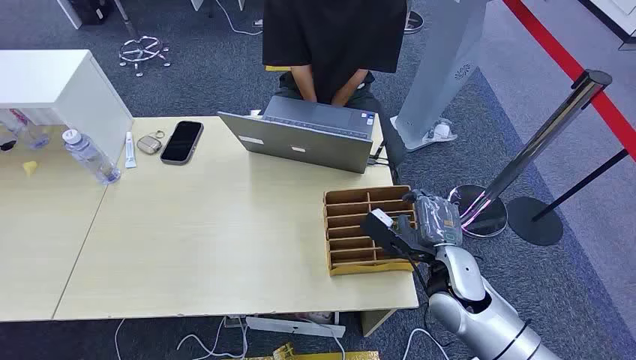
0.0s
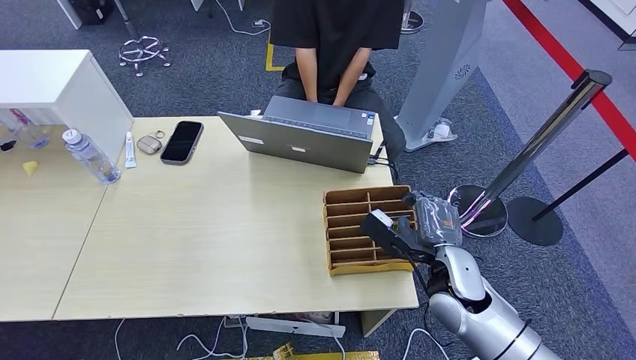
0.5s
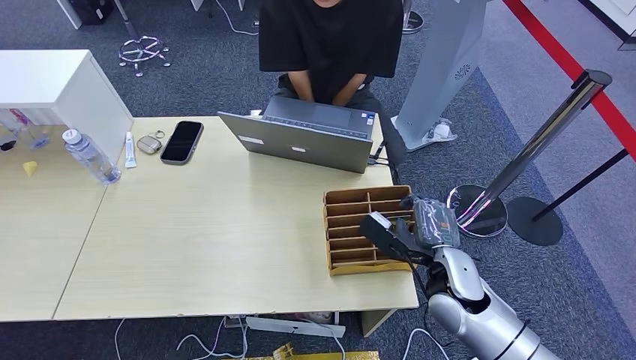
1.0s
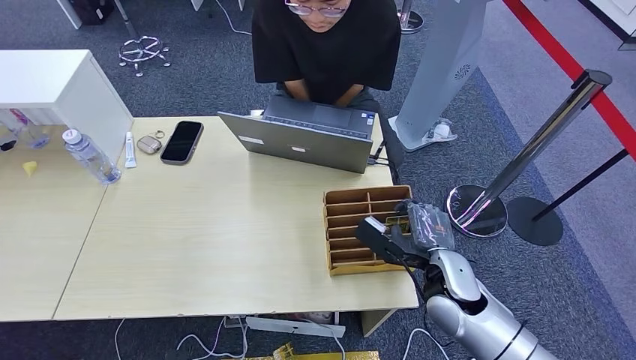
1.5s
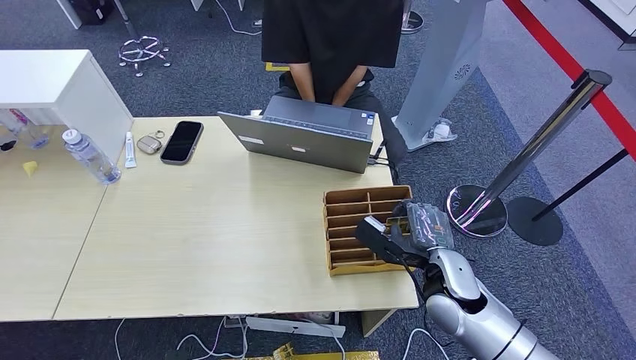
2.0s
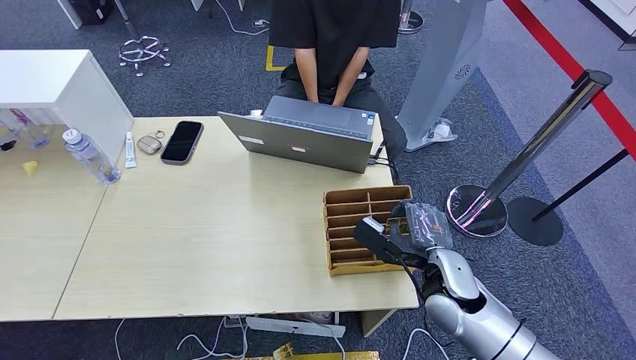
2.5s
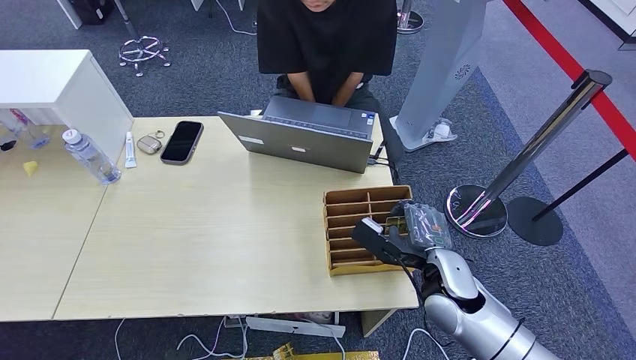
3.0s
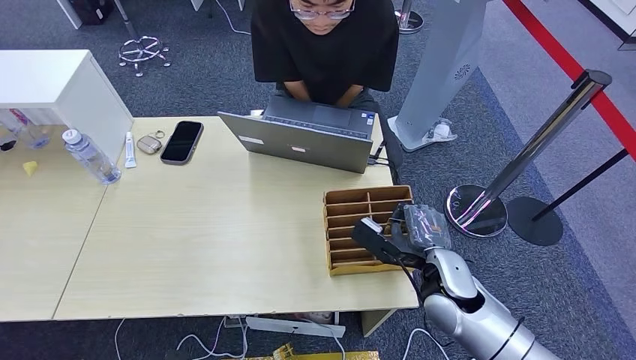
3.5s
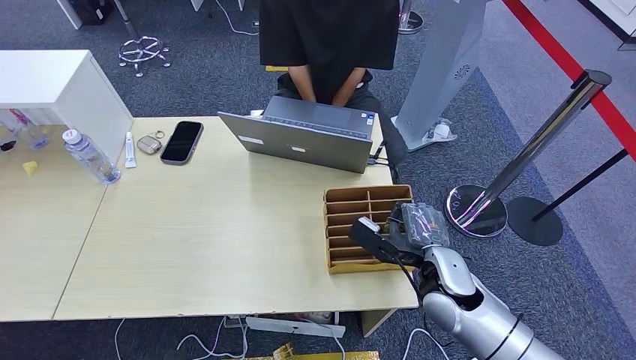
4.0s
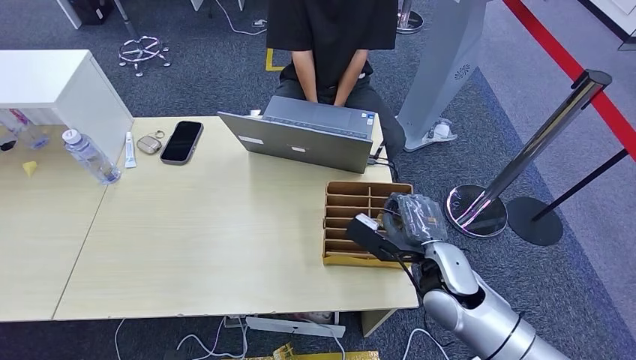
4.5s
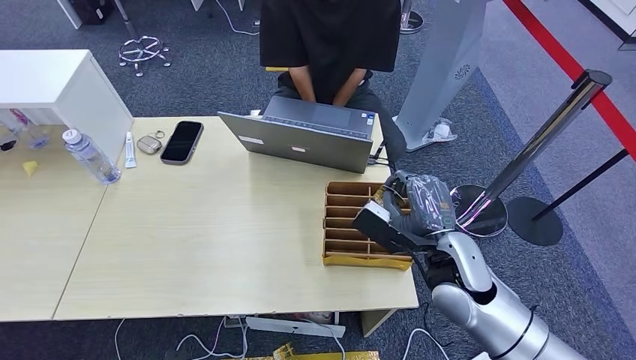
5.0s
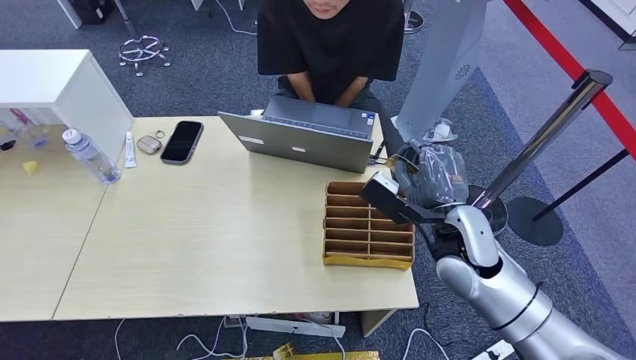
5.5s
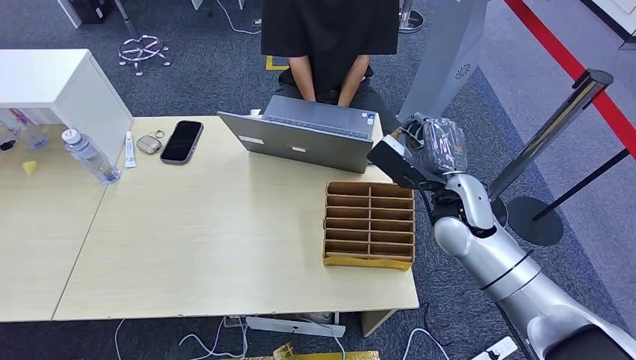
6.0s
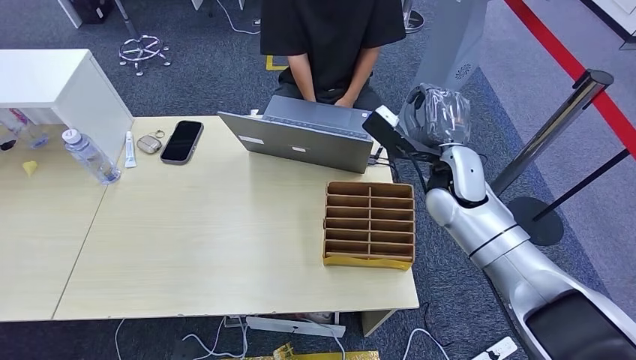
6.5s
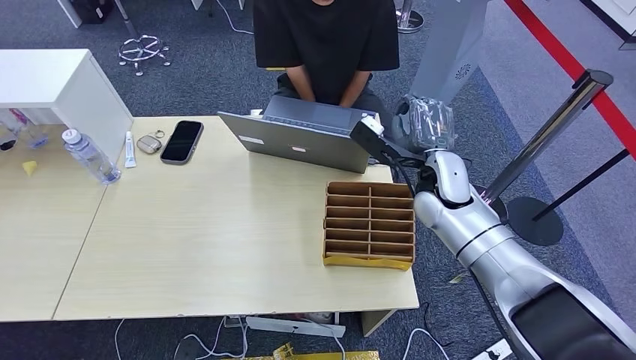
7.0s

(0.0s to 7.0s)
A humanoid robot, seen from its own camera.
Step, 0.0s - 4.5s: Pick up the key card from the card box.
Step, 5.5s - 7.0s: Hand the key card to the target.
2.0s - 3.5s: Both hands stay about where they are.
3.5s - 5.0s: The right hand goes some 5 cm upward.
5.0s - 7.0s: The right hand shifts approximately 15 cm forward.
